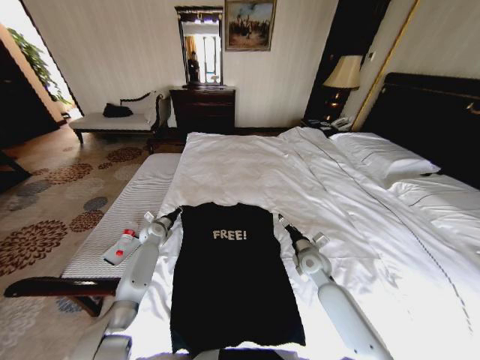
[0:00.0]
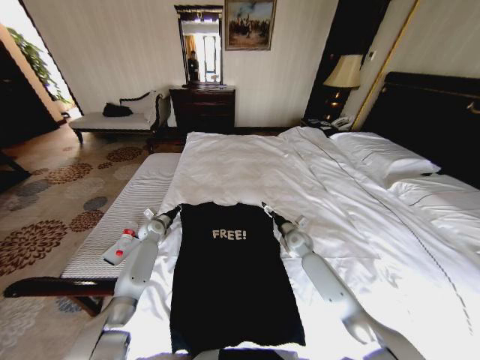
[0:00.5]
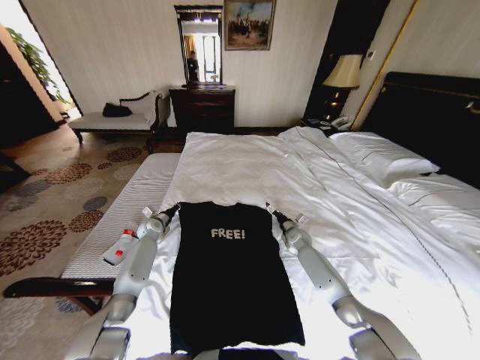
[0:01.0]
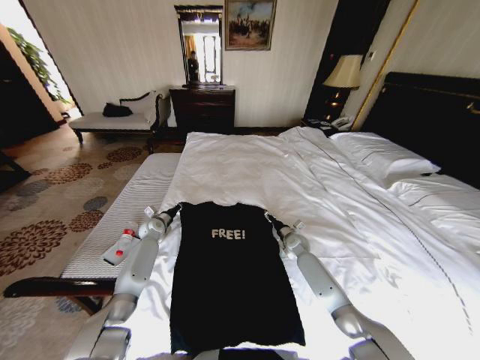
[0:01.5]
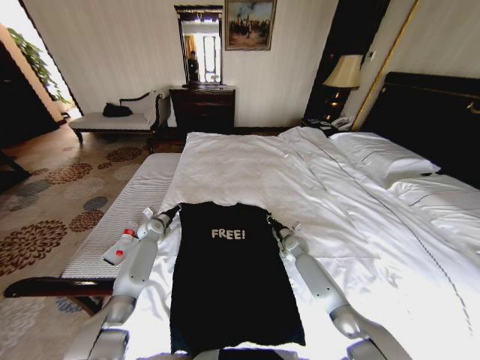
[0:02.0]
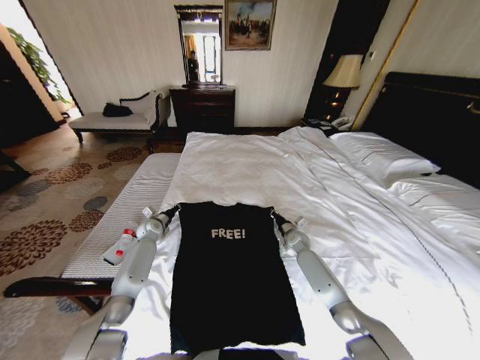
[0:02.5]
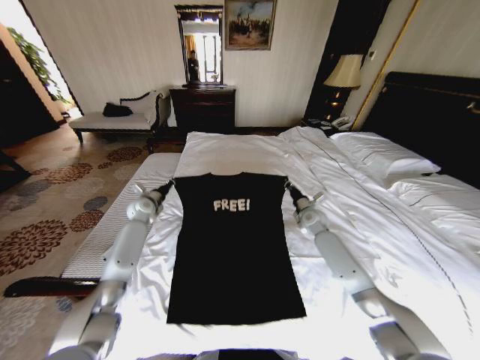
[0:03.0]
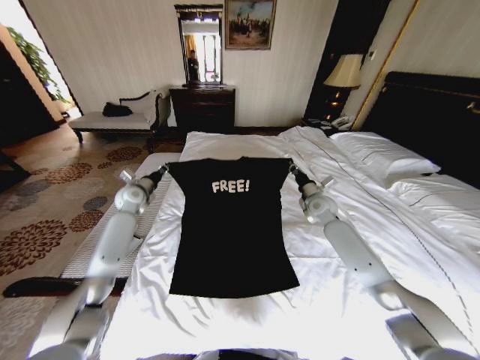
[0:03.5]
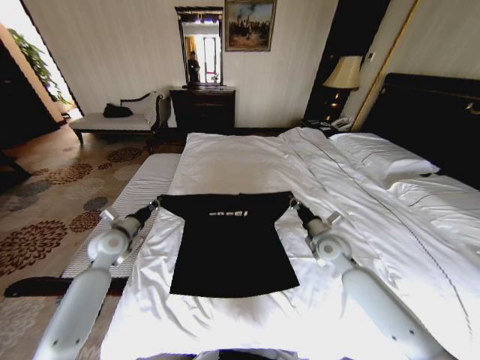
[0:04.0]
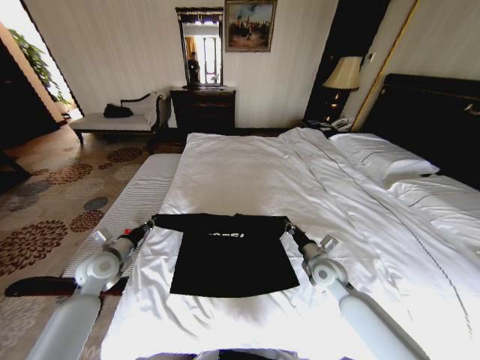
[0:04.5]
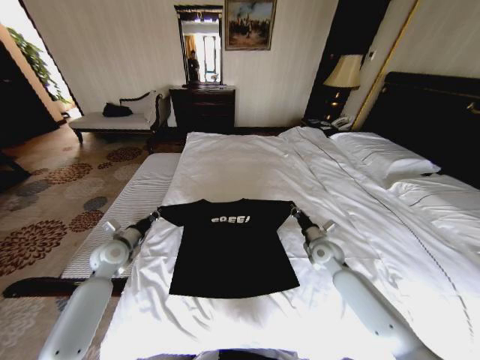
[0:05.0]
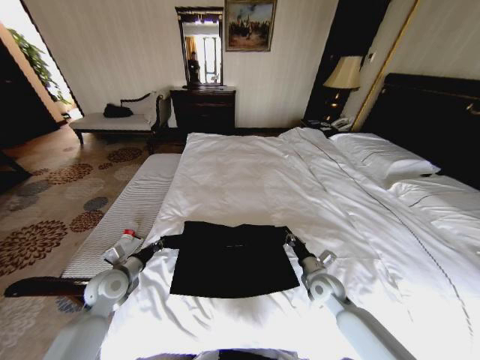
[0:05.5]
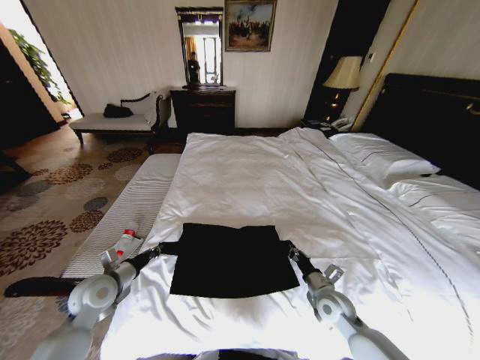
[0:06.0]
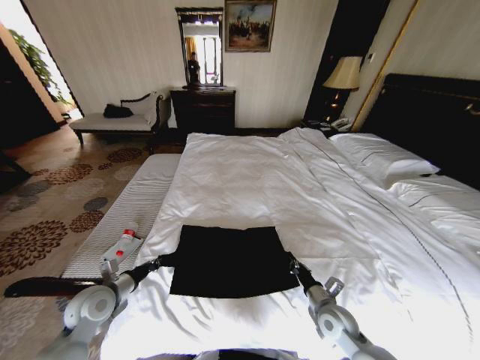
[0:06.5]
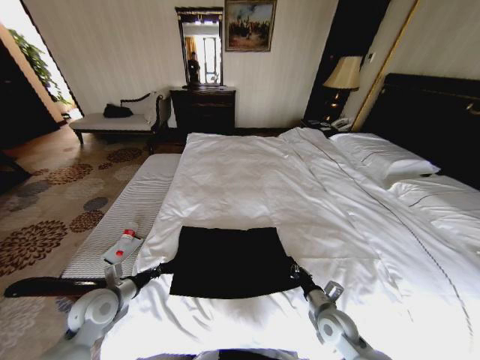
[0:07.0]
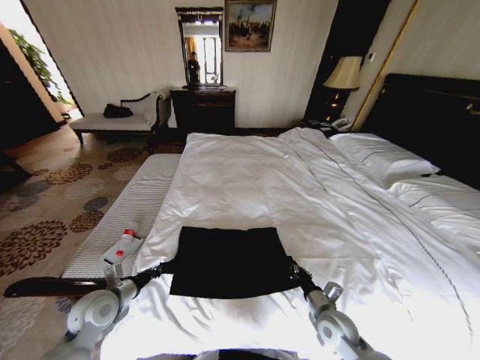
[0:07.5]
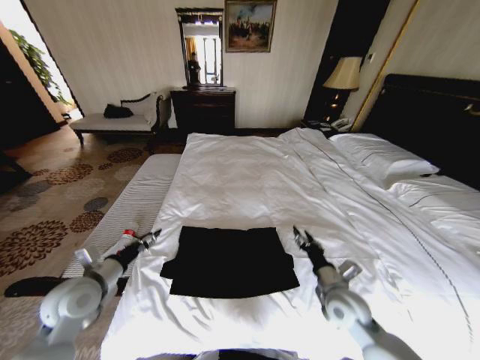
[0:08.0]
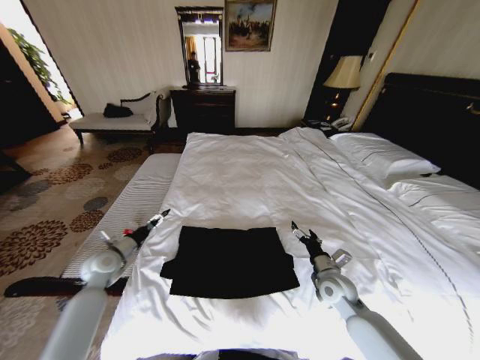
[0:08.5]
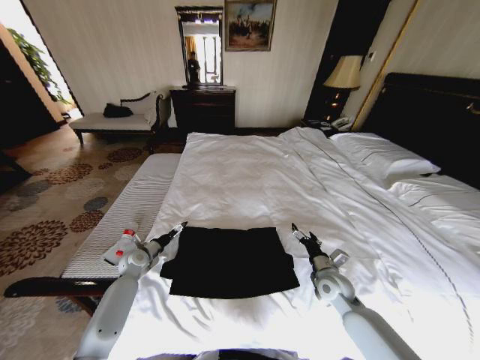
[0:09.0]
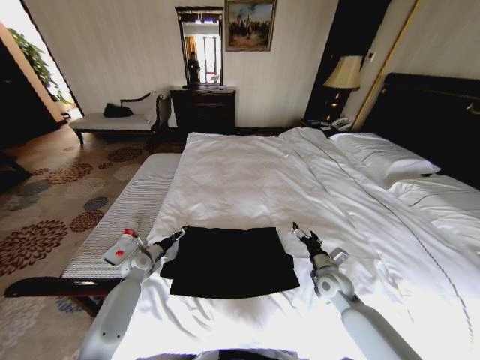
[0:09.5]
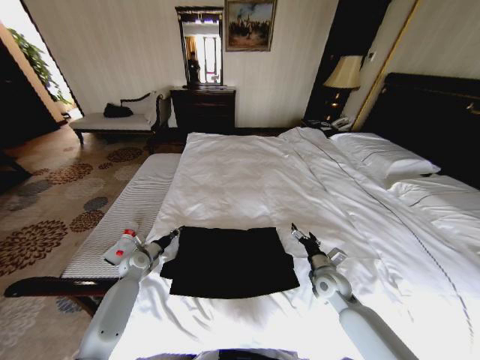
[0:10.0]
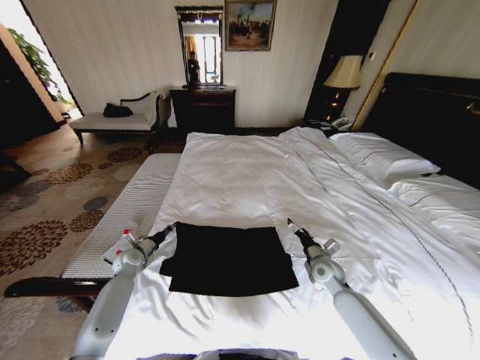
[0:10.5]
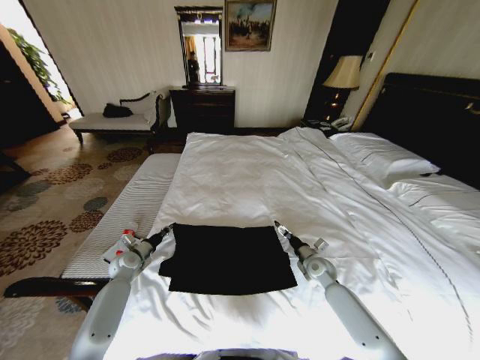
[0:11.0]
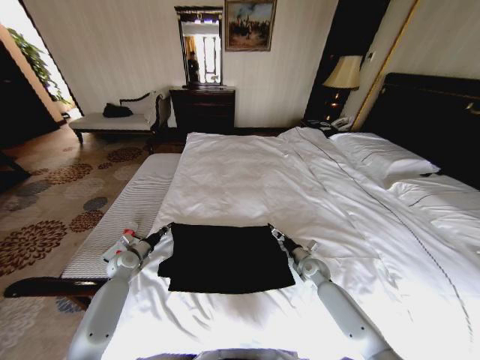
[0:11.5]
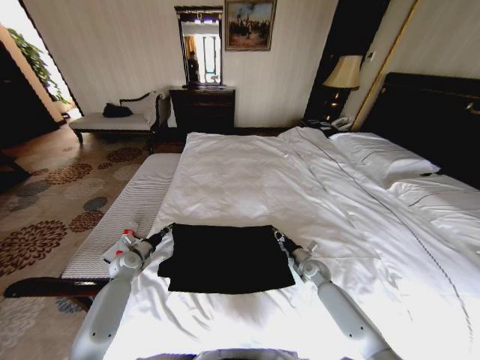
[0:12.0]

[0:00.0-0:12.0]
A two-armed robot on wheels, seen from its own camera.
Task of the whole recording: Fold the clothes on the bed.
0:00.0 to 0:02.0: The right gripper is displaced forward and downward by some 15 cm, and closes up.
0:02.0 to 0:04.0: The right gripper is displaced upward and backward by approximately 20 cm. Meanwhile the left gripper travels backward and upward by roughly 20 cm.
0:04.0 to 0:06.0: The right gripper goes forward and backward, about 15 cm each way, reversing 2 times. Meanwhile the left gripper goes forward and backward, roughly 10 cm each way, reversing 2 times.
0:06.0 to 0:08.0: Both grippers travel together upward, about 5 cm. The left gripper opens, while the right gripper opens.
0:08.0 to 0:10.0: The left gripper is displaced downward and forward by some 25 cm, and closes; the right gripper is displaced forward and downward by about 10 cm, and opens up.
0:10.0 to 0:12.0: The right gripper is displaced downward and forward by approximately 10 cm, and closes its fingers.

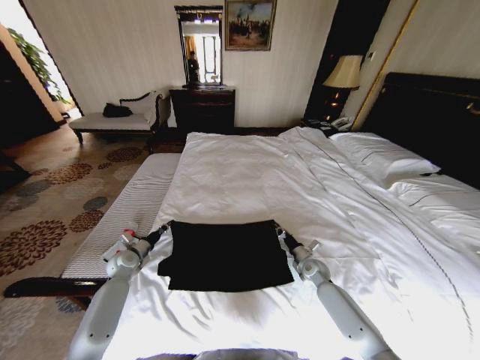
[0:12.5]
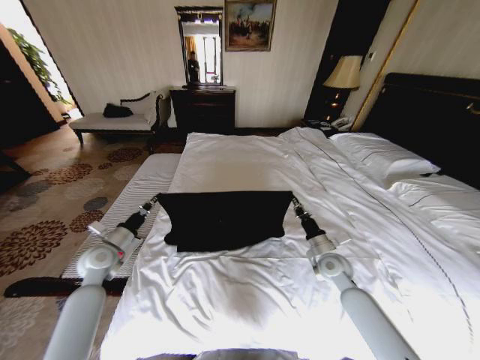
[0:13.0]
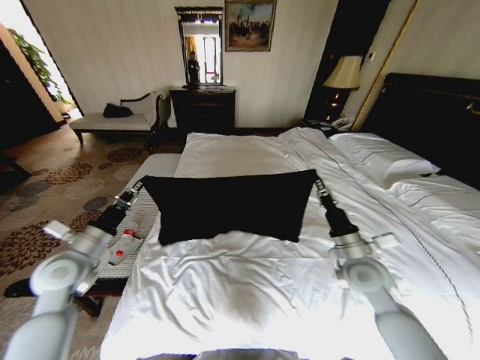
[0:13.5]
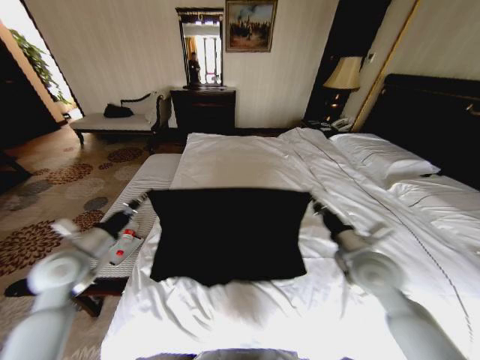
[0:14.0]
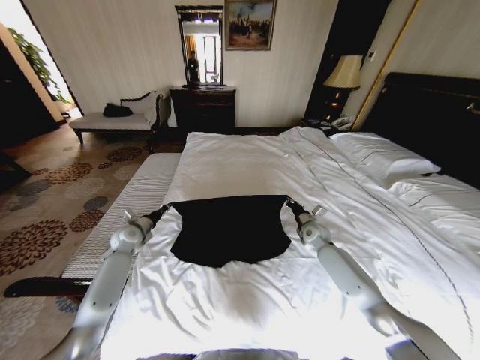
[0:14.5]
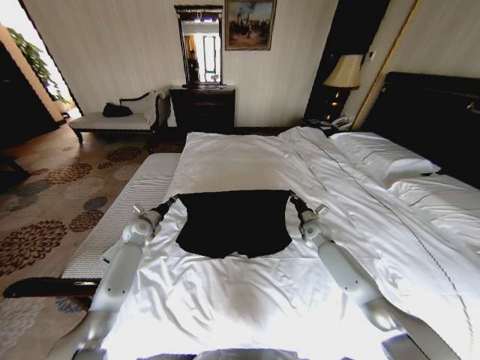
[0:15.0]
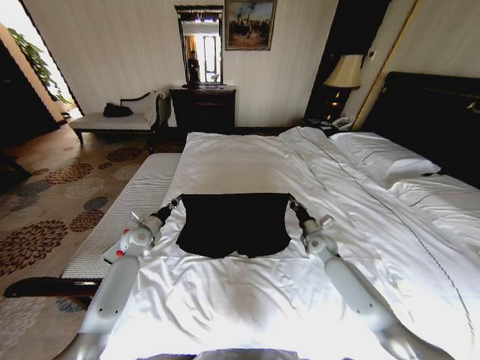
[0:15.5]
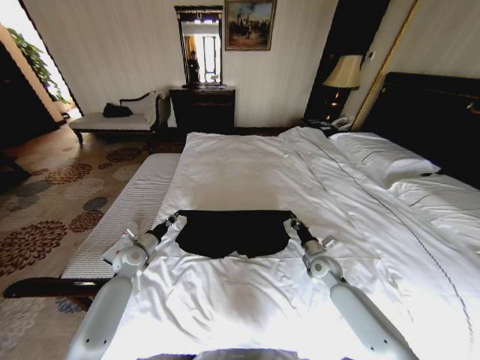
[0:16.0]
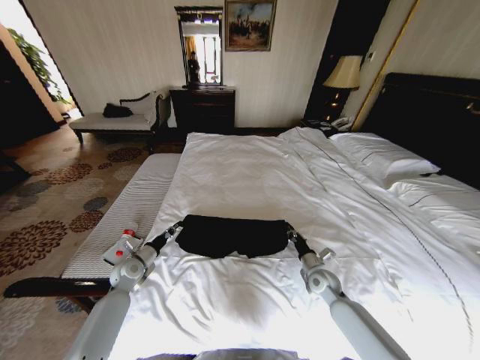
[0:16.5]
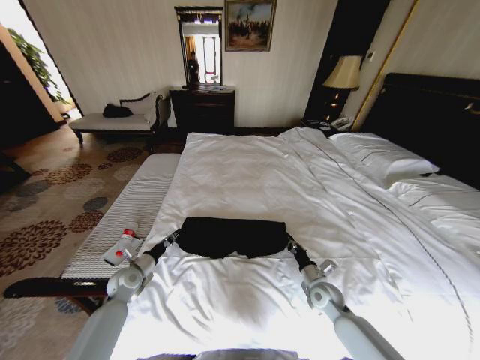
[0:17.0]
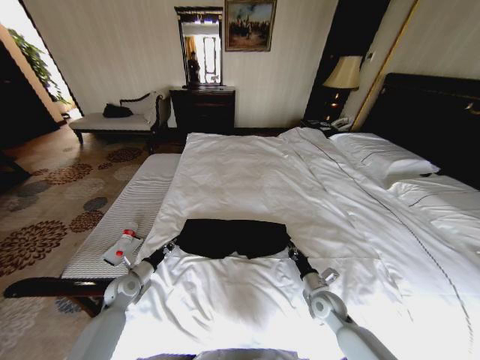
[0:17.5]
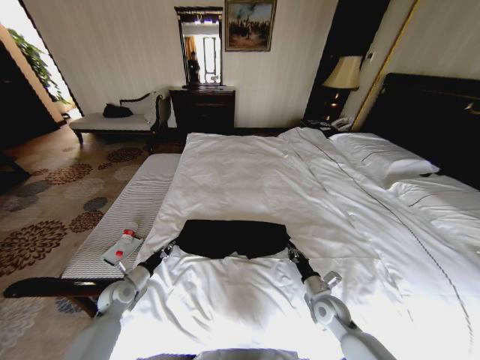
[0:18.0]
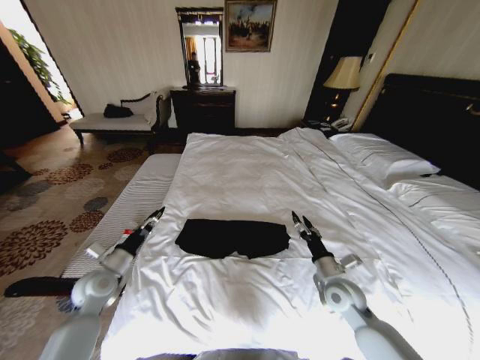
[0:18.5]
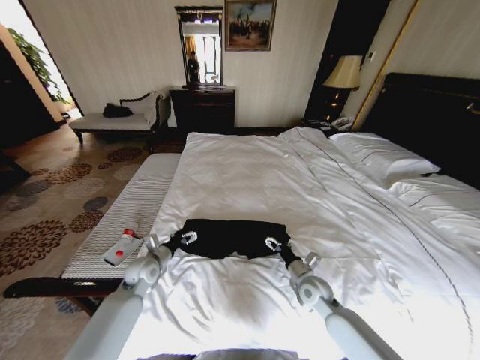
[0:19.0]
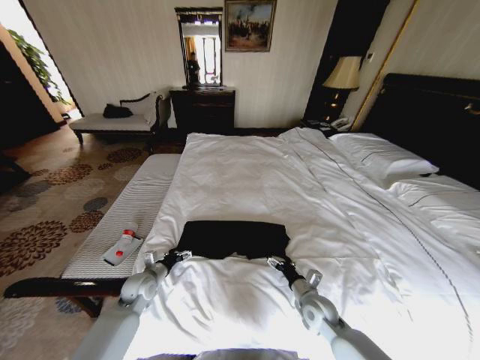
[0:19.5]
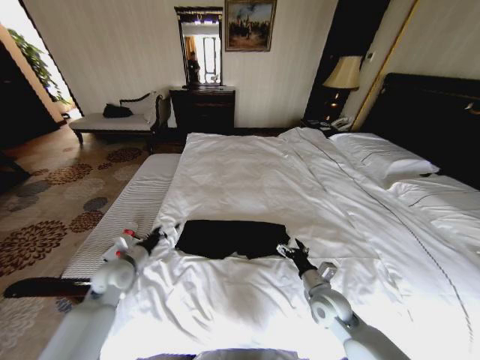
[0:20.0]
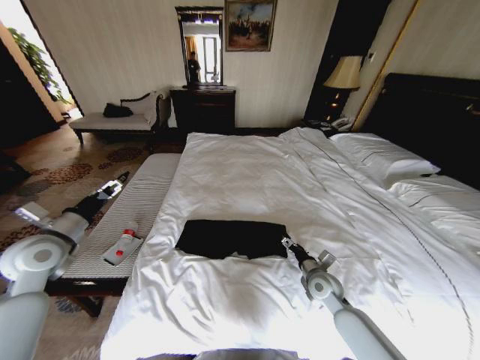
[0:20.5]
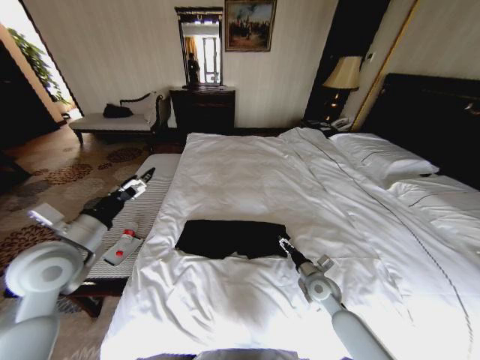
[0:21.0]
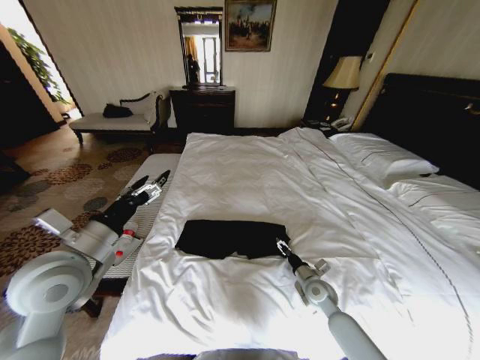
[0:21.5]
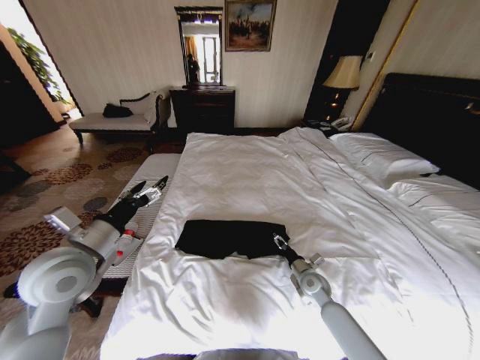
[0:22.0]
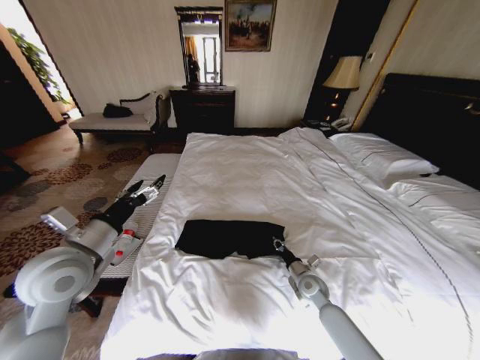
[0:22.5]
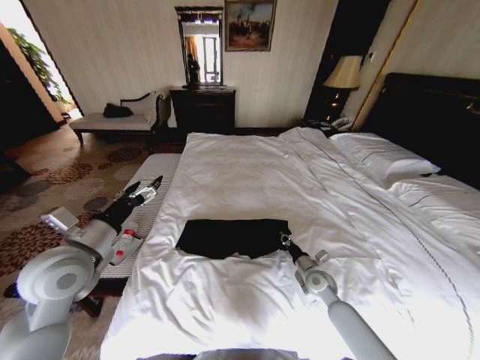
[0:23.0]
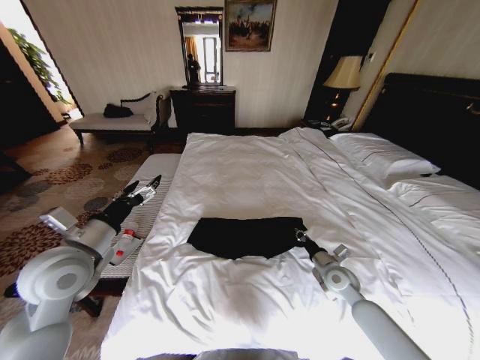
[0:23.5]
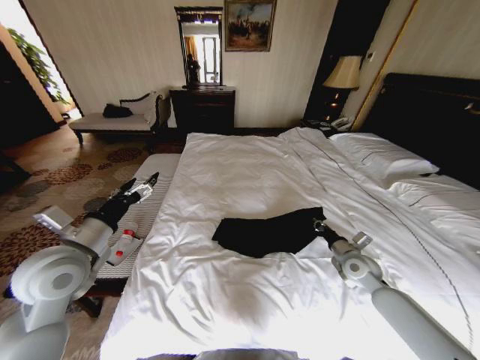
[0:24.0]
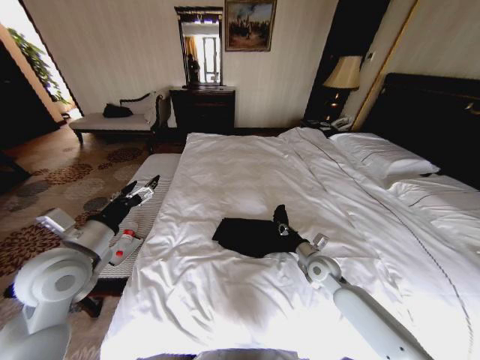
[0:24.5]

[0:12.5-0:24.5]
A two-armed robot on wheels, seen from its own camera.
Task of the whole recording: Fold the clothes on the bed.
0:12.5 to 0:14.5: The right gripper goes roughly 15 cm upward and forward, while the left gripper heads forward, covering about 5 cm, and reaches approximately 20 cm upward, then returns.
0:14.5 to 0:16.5: Both grippers travel together backward and downward, about 15 cm.
0:16.5 to 0:18.5: Both grippers move upward and backward, approximately 10 cm. The right gripper opens up. The left gripper opens its fingers.
0:18.5 to 0:20.5: The left gripper moves upward, about 15 cm, and opens its fingers. The right gripper opens up.
0:20.5 to 0:22.5: The right gripper moves downward, some 5 cm, and closes its fingers; the left gripper shifts about 10 cm to the right and backward.
0:22.5 to 0:24.5: The right gripper shifts some 10 cm upward, and moves about 10 cm to the right and comes back.

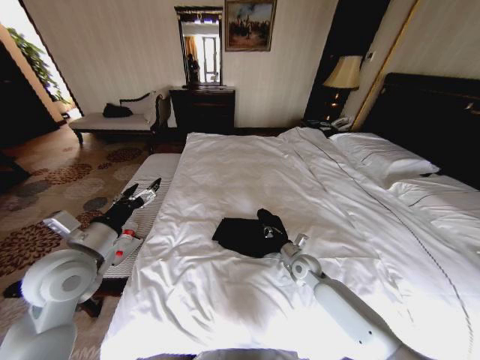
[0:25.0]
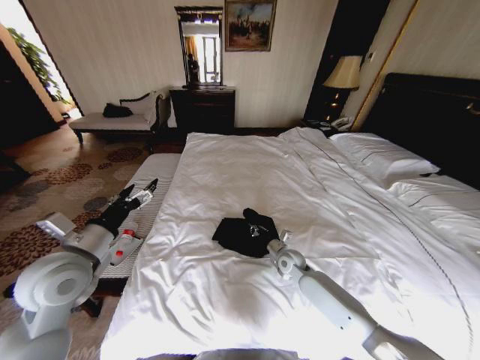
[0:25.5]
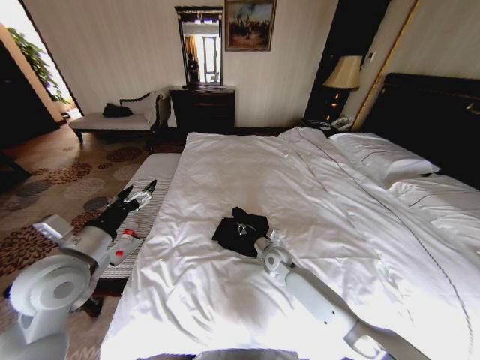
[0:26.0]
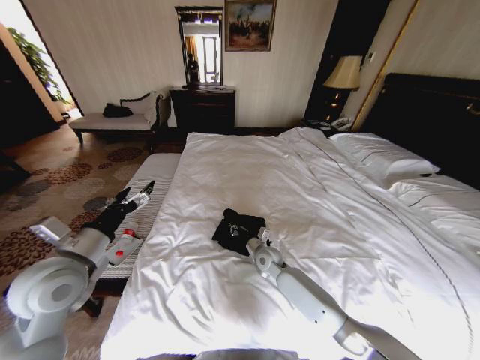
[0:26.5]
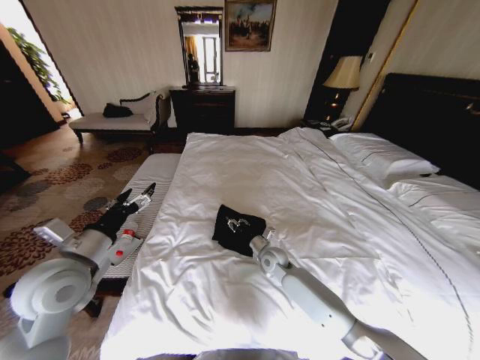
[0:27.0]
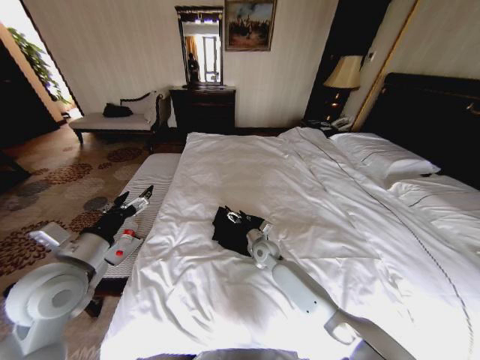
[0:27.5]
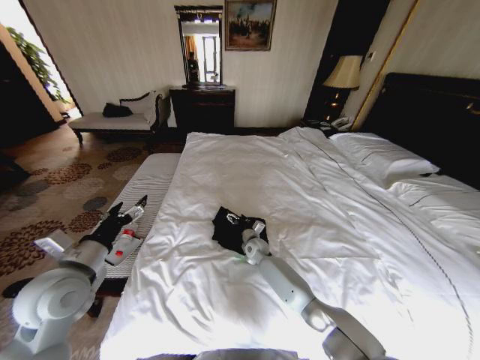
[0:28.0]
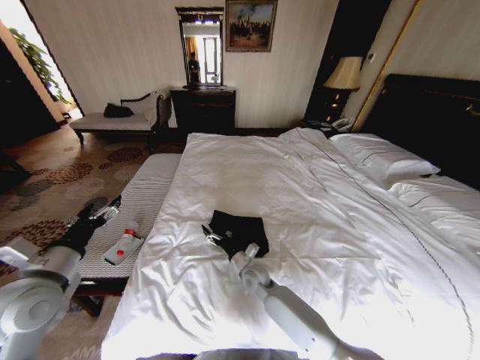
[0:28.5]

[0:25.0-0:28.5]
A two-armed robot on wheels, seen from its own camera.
Task of the whole recording: Fold the clothes on the bed.
0:25.0 to 0:27.0: The right gripper is displaced to the left by roughly 10 cm, and opens its fingers.
0:27.0 to 0:28.5: The left gripper ends up about 5 cm from where it was, while the right gripper travels to the left and backward by roughly 10 cm, and opens up.
